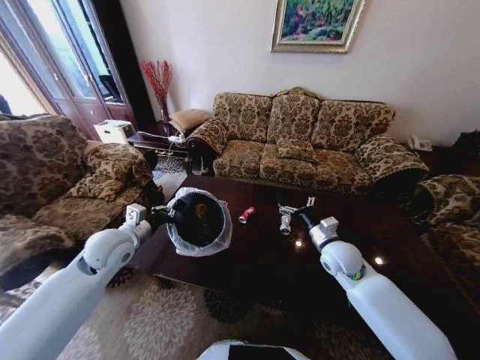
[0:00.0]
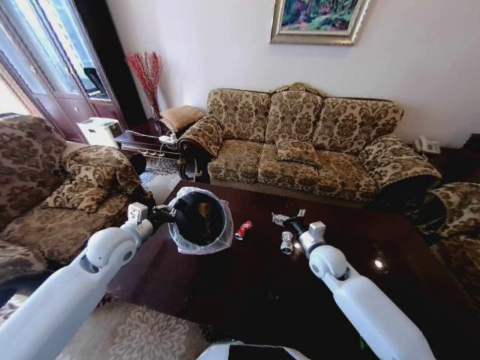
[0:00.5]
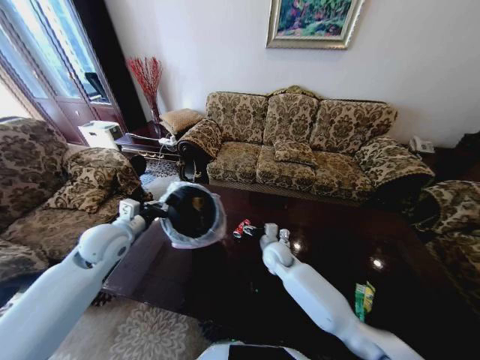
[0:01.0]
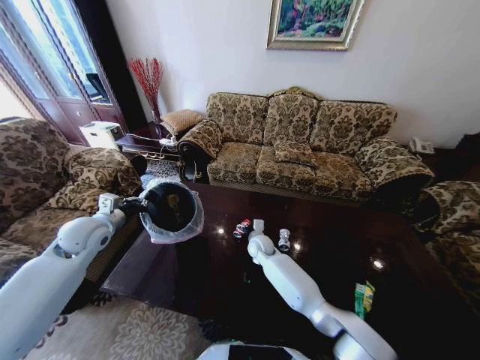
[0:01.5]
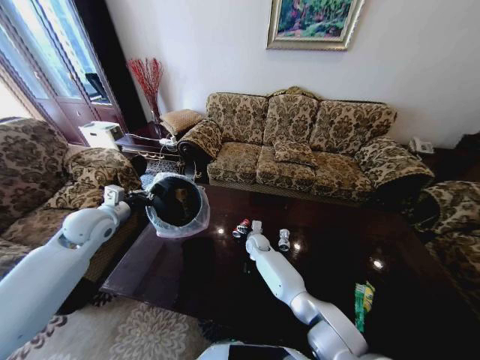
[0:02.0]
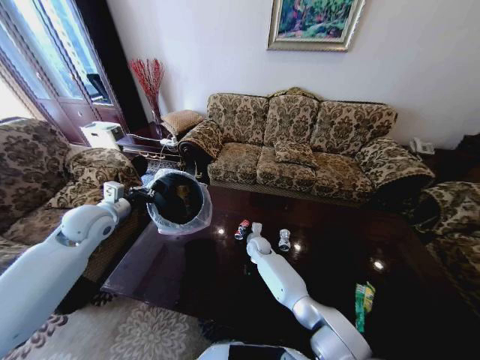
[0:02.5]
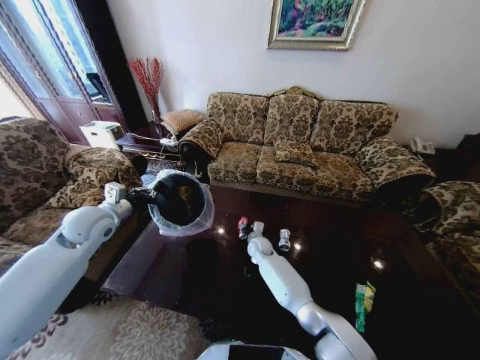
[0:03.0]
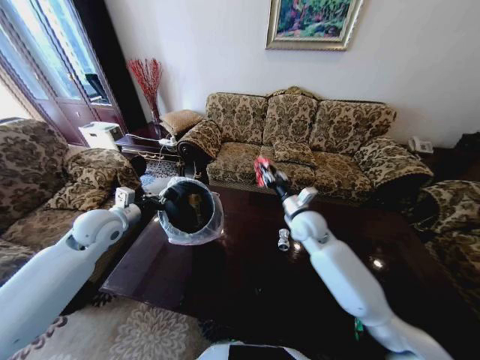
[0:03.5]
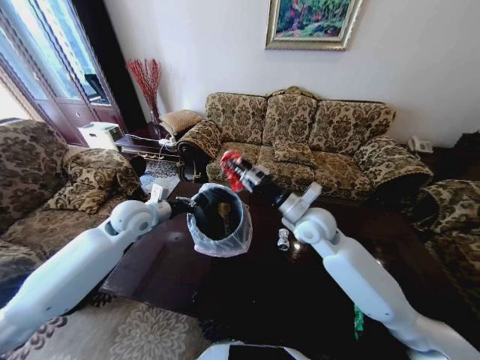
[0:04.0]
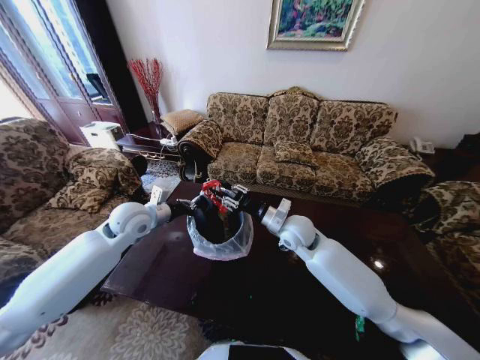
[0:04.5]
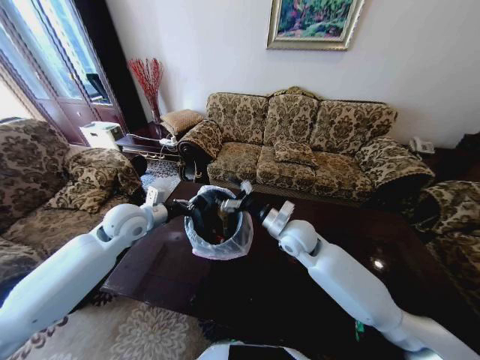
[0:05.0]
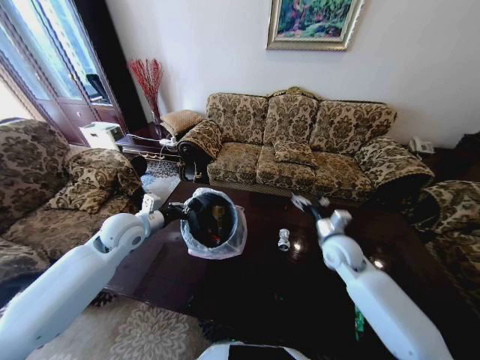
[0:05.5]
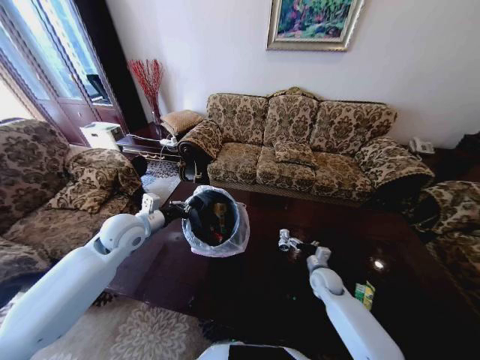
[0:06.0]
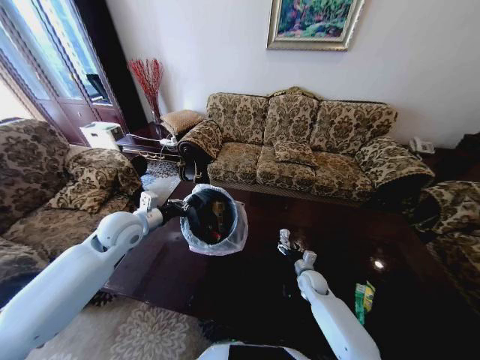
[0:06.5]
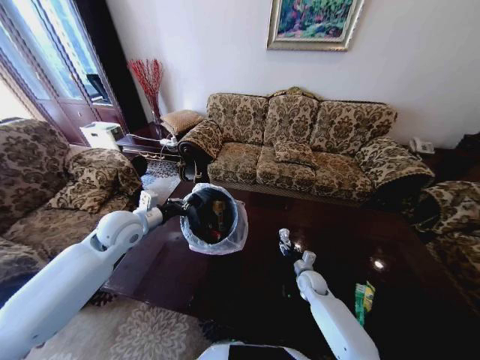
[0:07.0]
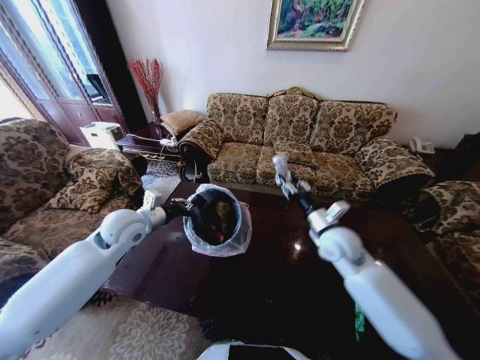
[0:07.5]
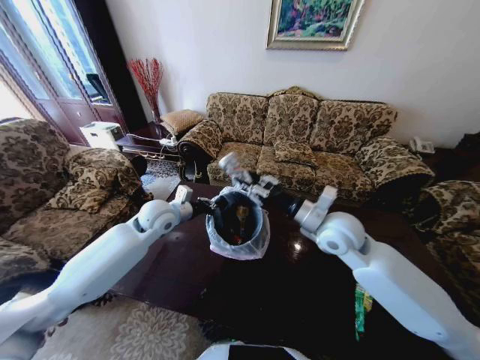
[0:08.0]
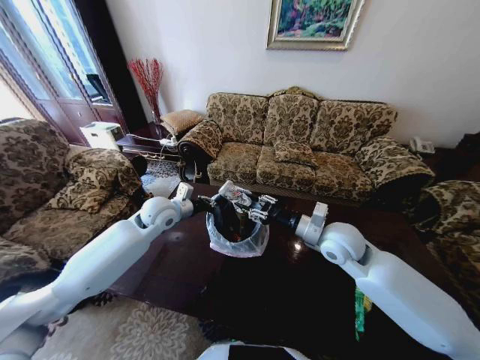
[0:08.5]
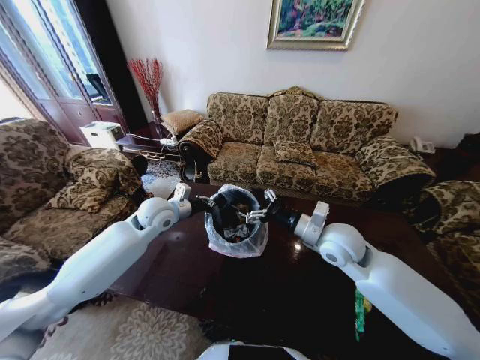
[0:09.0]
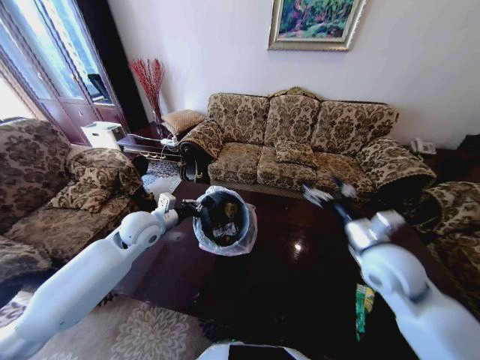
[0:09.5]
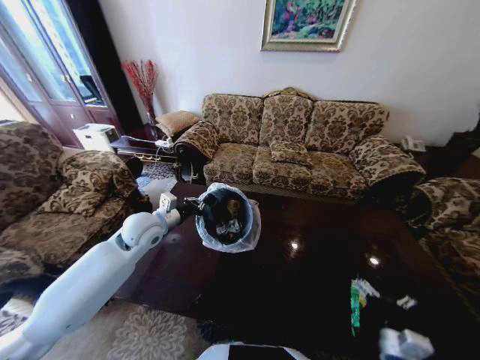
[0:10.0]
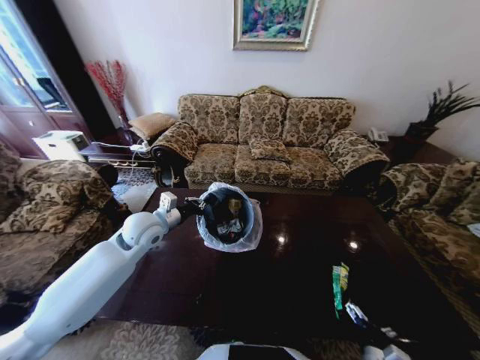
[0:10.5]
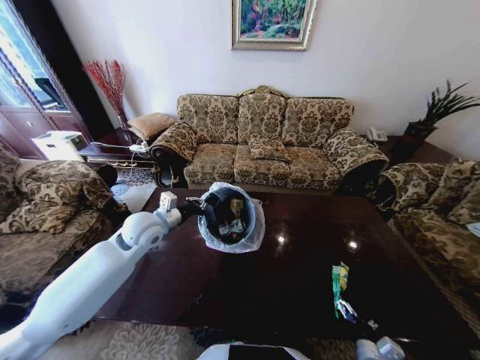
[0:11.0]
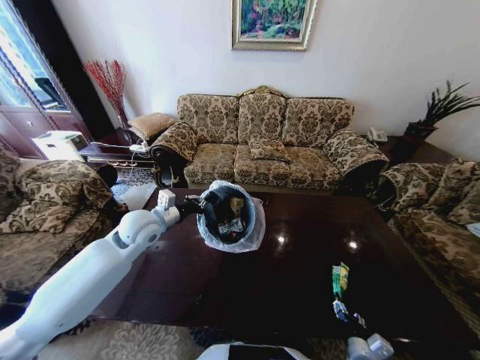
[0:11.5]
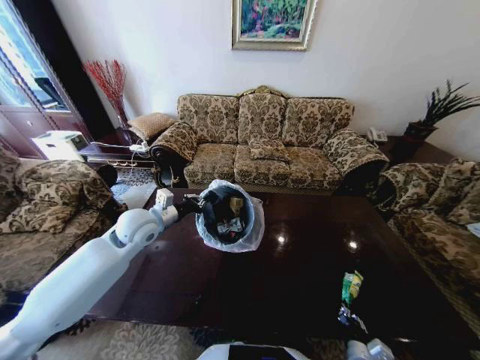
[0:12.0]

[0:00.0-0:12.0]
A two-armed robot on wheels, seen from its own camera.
Task of the whole recording: Move to the front of the table and place the trash on the table into the trash bin.
0:00.0 to 0:02.0: The right gripper travels to the left, downward and forward by about 30 cm, while the left gripper moves to the left, approximately 5 cm.
0:02.0 to 0:04.0: The left gripper travels to the right by about 10 cm; the right gripper heads upward and to the right, covering approximately 30 cm, and closes.
0:04.0 to 0:06.0: The right gripper goes some 30 cm downward and to the right, and opens up.
0:06.0 to 0:08.0: The left gripper moves to the right and forward, about 10 cm. Meanwhile the right gripper shifts some 30 cm upward, and closes.
0:08.0 to 0:10.0: The right gripper is displaced backward, downward and to the right by about 35 cm, and opens up.
0:10.0 to 0:12.0: The right gripper heads downward, covering about 10 cm, and closes.

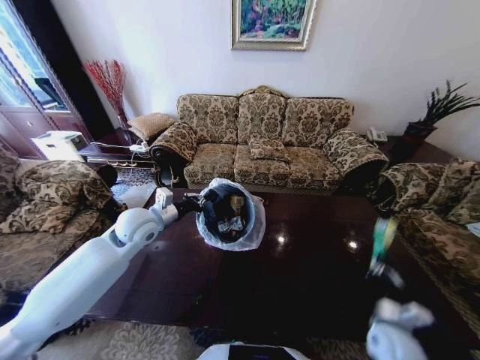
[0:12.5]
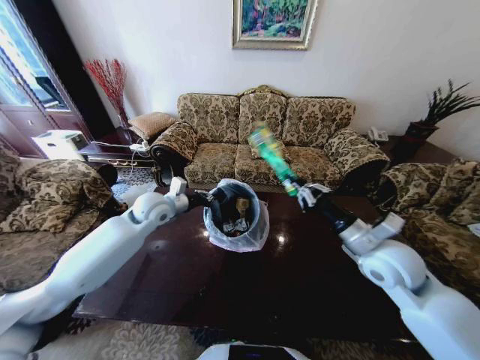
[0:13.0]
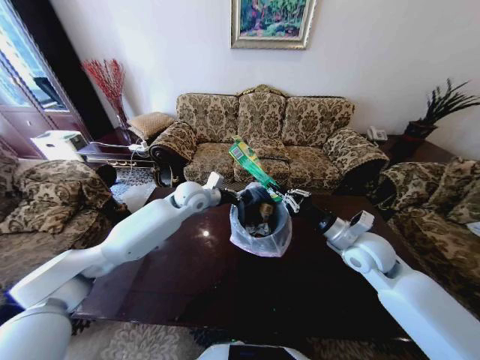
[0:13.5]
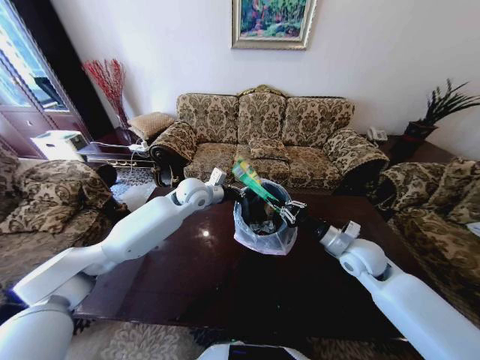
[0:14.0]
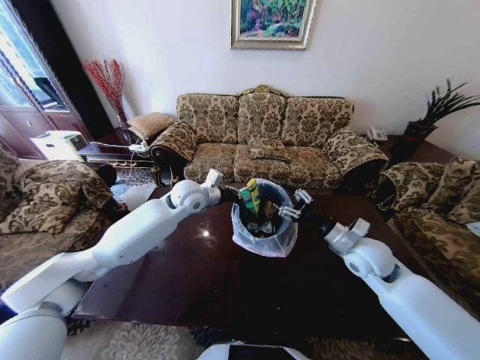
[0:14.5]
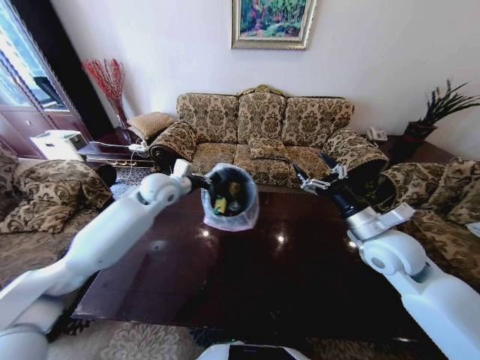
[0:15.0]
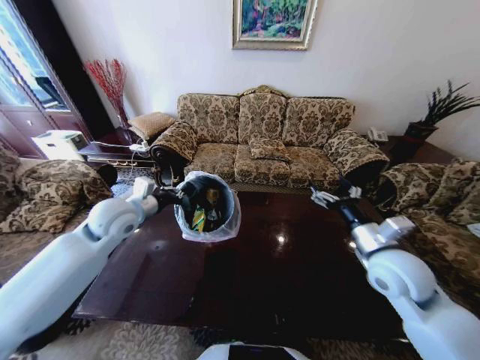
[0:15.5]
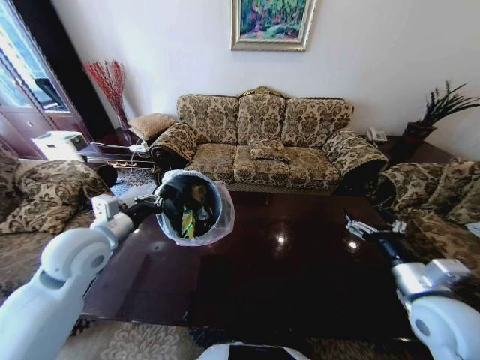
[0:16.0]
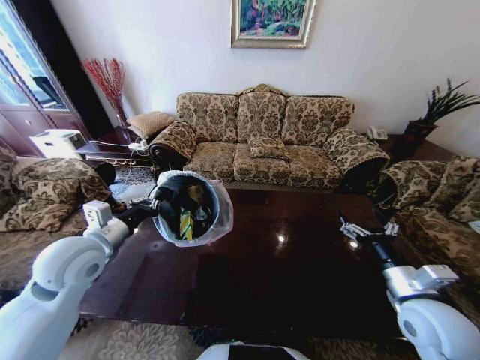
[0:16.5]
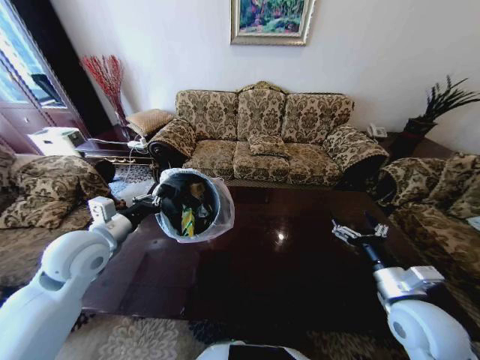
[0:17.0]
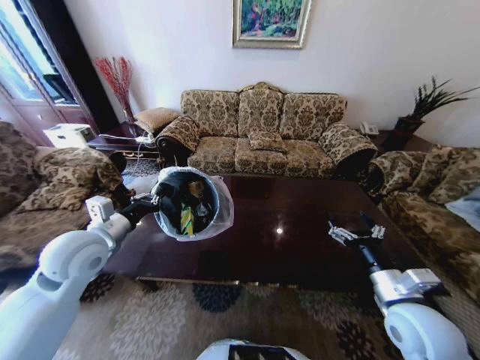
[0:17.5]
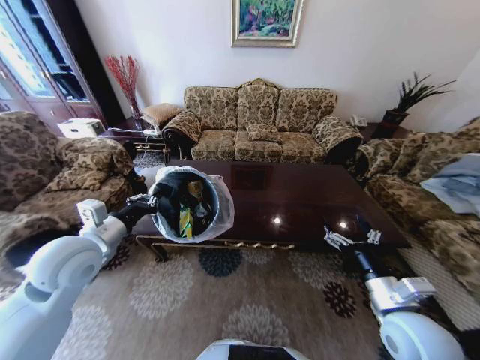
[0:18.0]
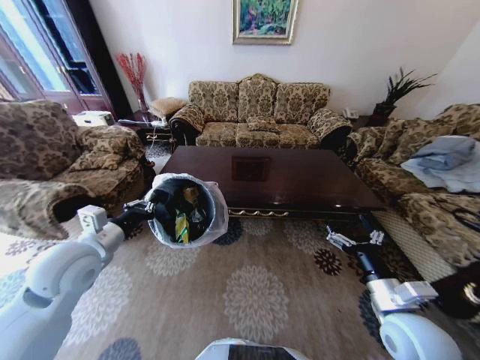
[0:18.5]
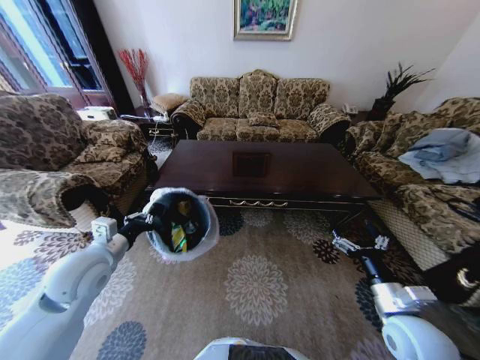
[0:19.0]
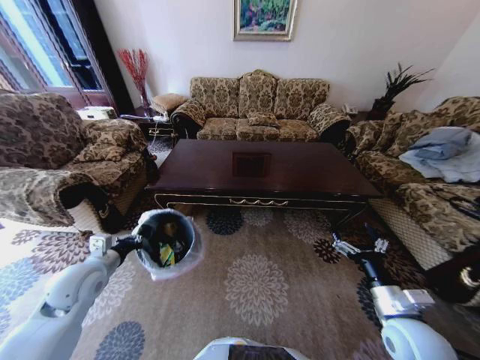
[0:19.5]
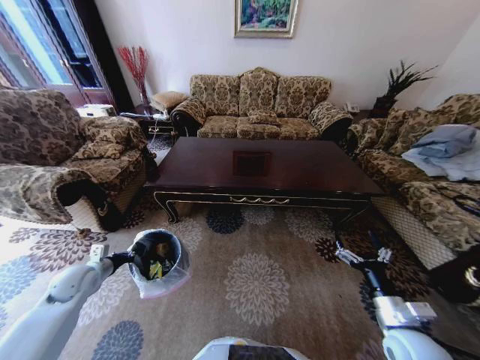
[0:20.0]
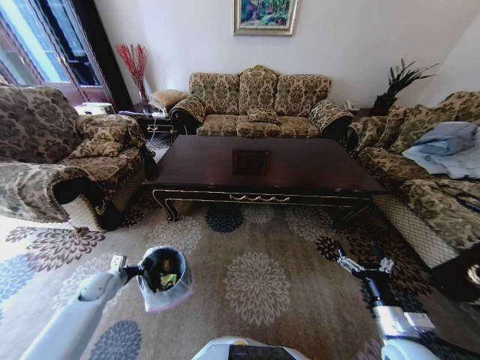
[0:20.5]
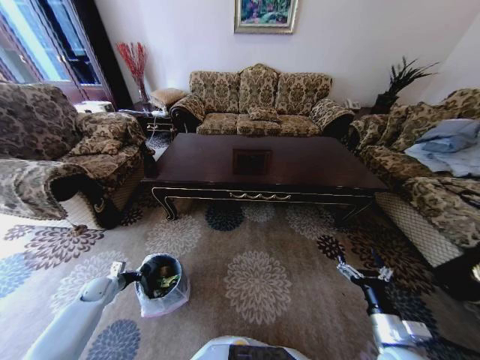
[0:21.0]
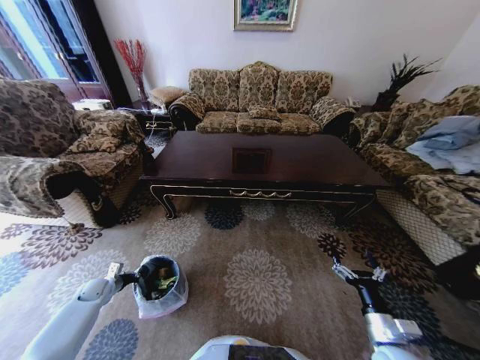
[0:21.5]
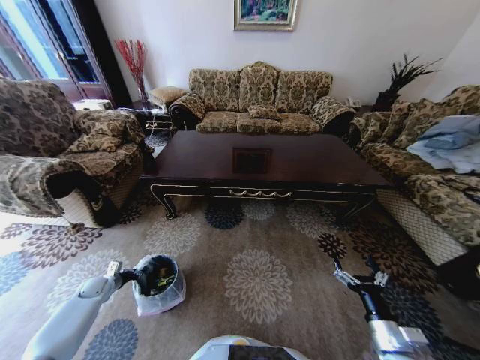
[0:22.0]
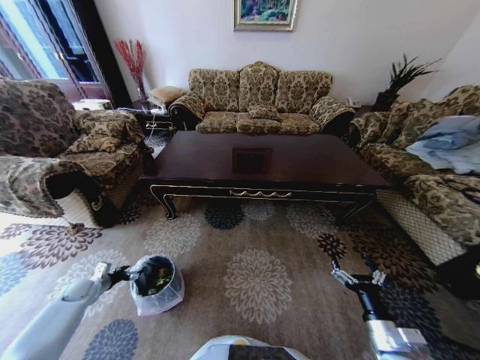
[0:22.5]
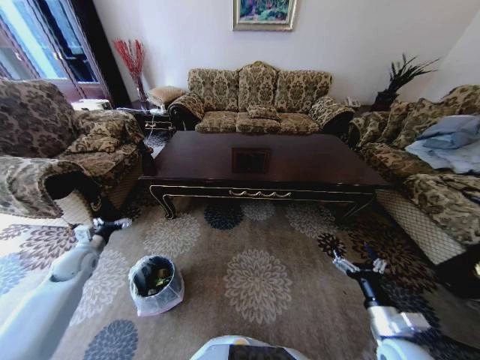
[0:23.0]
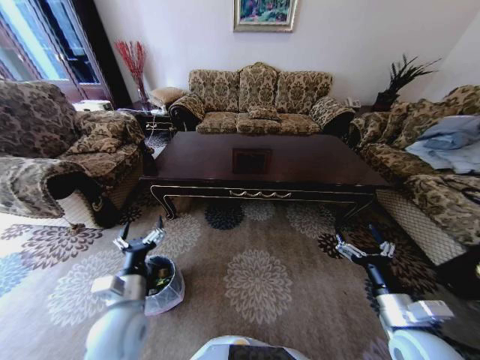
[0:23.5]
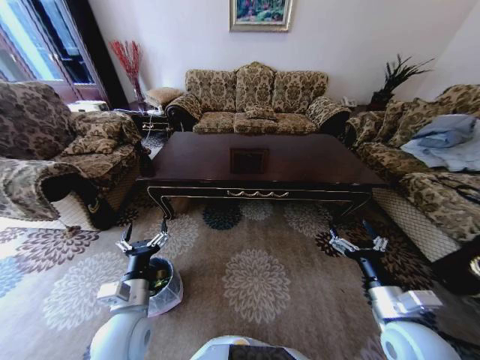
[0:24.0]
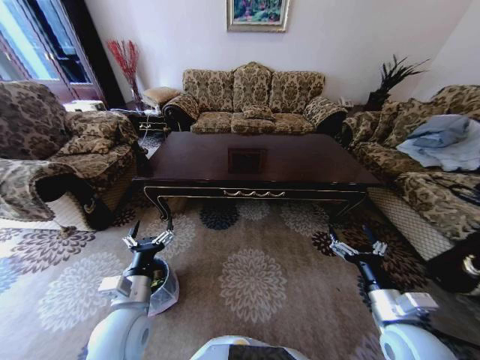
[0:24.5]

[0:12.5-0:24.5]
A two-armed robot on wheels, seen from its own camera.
Task of the whole recording: Move to the front of the table and place the trash on the table into the trash bin.
0:12.5 to 0:14.5: The left gripper moves to the right and forward, approximately 15 cm; the right gripper moves forward, upward and to the left, about 20 cm, and opens up.
0:14.5 to 0:16.5: The left gripper goes some 25 cm backward and to the left, while the right gripper heads backward, covering approximately 15 cm, and opens its fingers.
0:18.5 to 0:20.5: The left gripper travels downward and to the left by some 30 cm, while the right gripper shifts approximately 10 cm downward.
0:20.5 to 0:22.5: The left gripper travels to the left and downward by some 10 cm, and opens its fingers.
0:22.5 to 0:24.5: The right gripper goes some 10 cm upward. Meanwhile the left gripper goes some 40 cm to the right and upward.

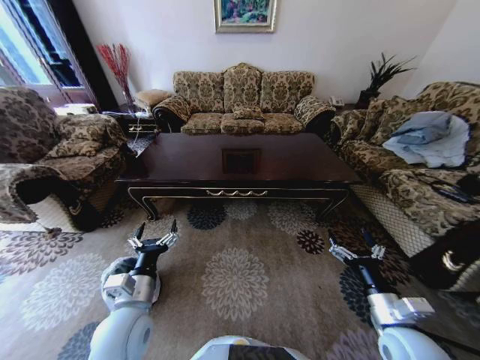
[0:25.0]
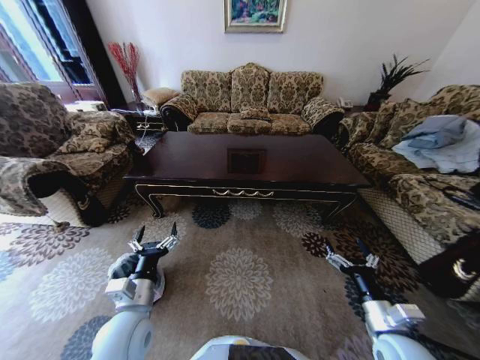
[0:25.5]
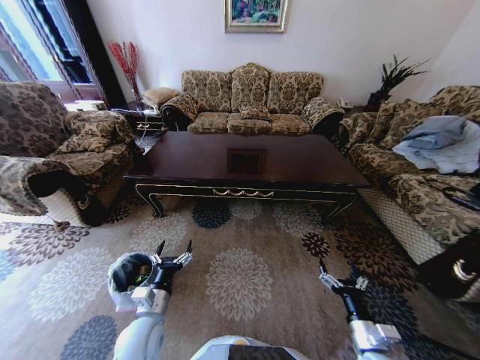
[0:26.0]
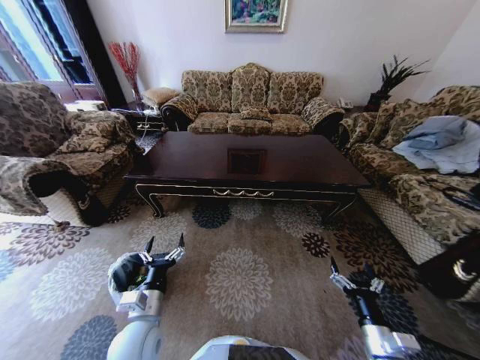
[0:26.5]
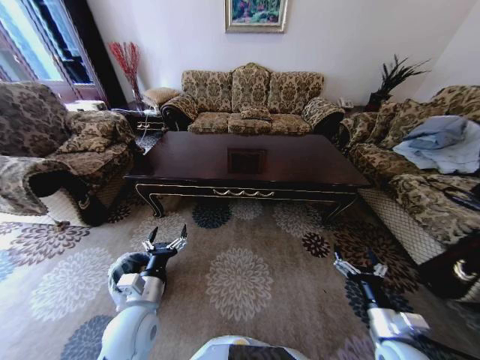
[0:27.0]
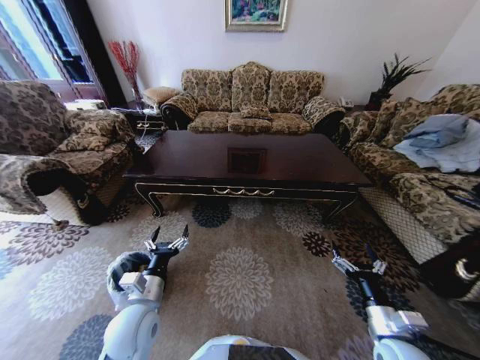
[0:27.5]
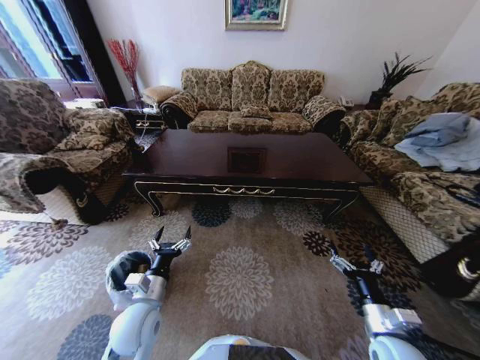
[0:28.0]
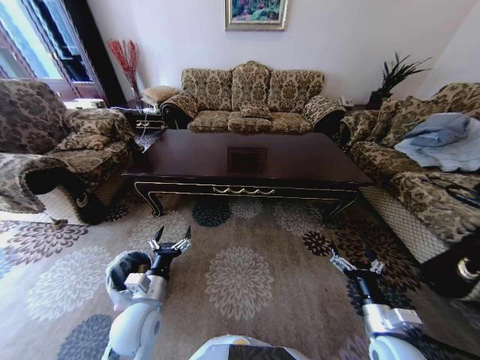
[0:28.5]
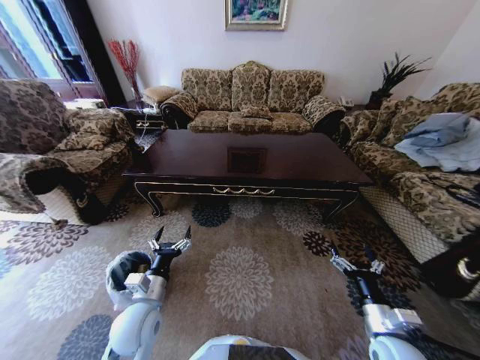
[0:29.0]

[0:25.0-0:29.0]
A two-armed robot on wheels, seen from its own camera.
Task of the whole recording: Move to the front of the table and place the trash on the table into the trash bin.
0:25.0 to 0:27.0: The left gripper reaches approximately 10 cm downward, then returns. Meanwhile the right gripper goes some 5 cm downward.
0:27.0 to 0:29.0: There are only small adjustments of the grippers.
